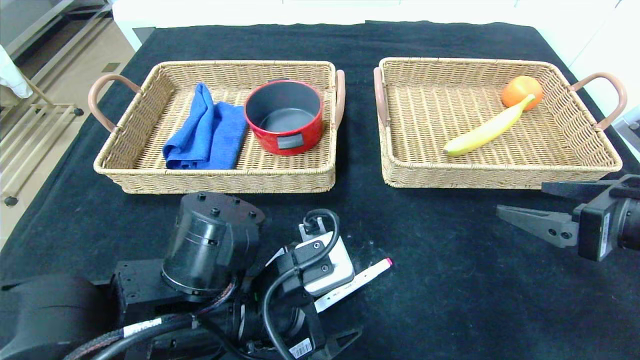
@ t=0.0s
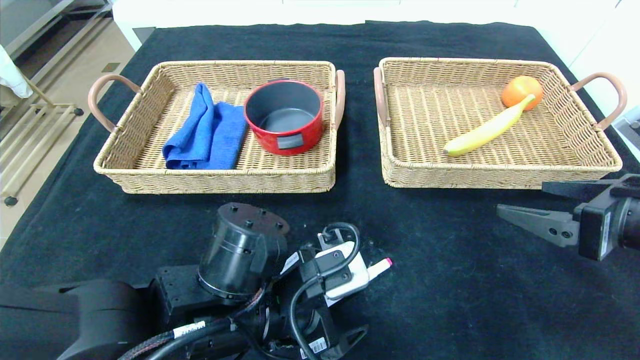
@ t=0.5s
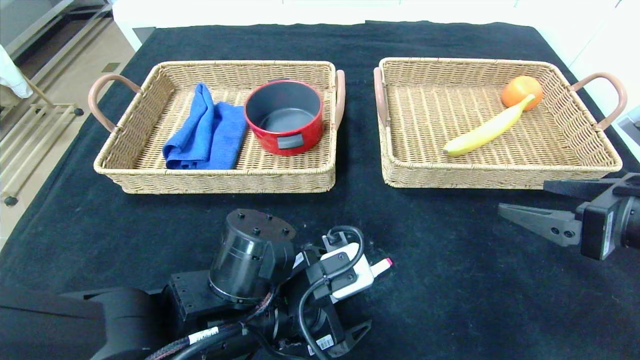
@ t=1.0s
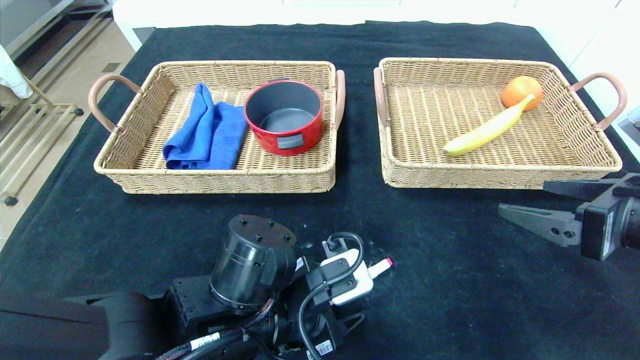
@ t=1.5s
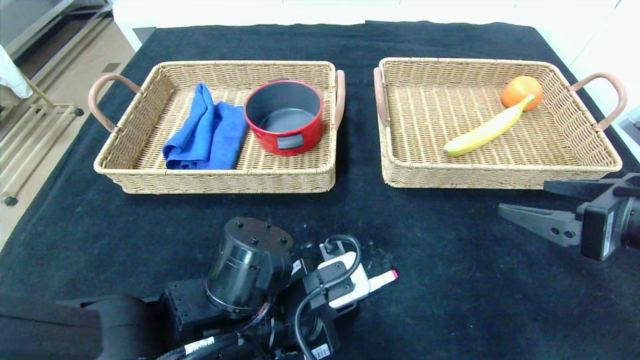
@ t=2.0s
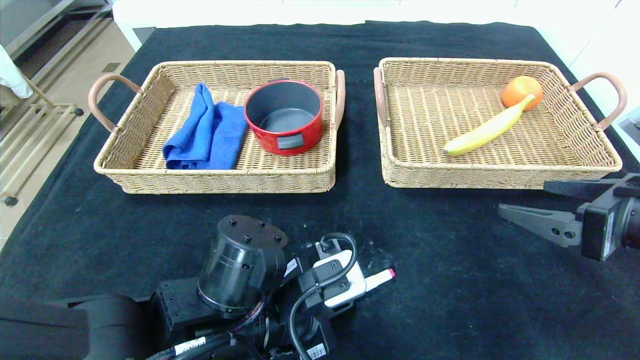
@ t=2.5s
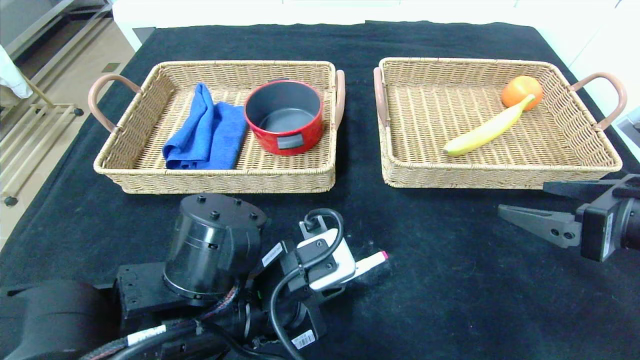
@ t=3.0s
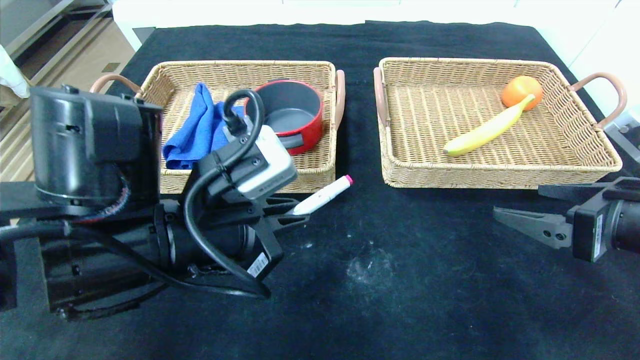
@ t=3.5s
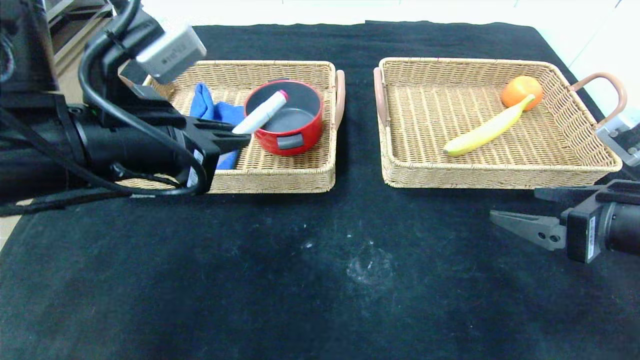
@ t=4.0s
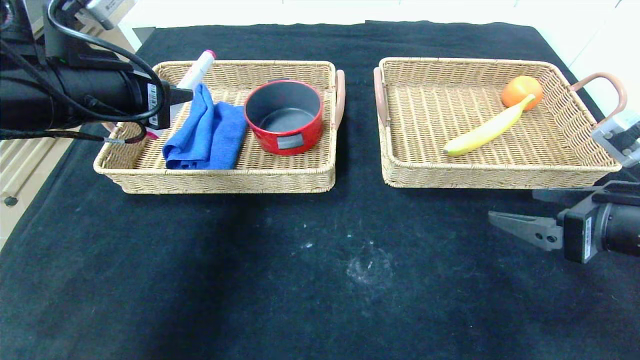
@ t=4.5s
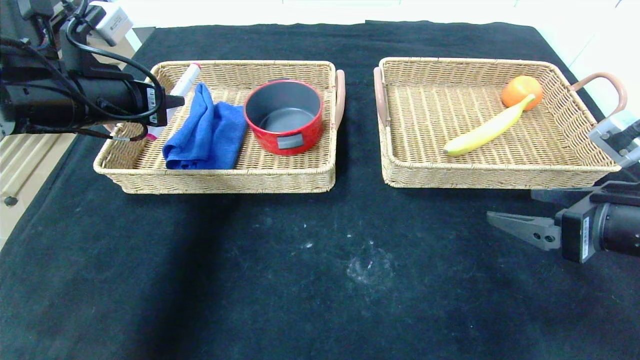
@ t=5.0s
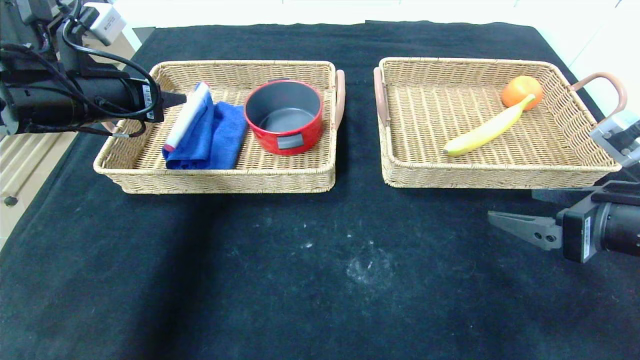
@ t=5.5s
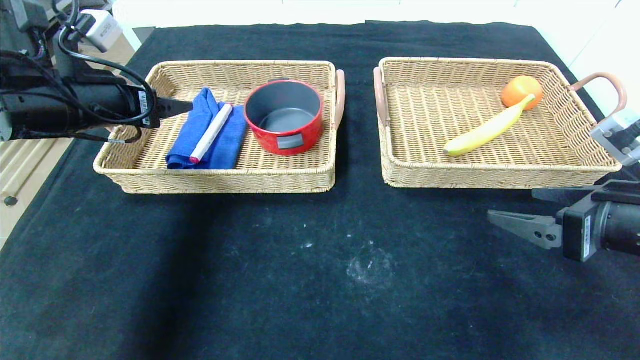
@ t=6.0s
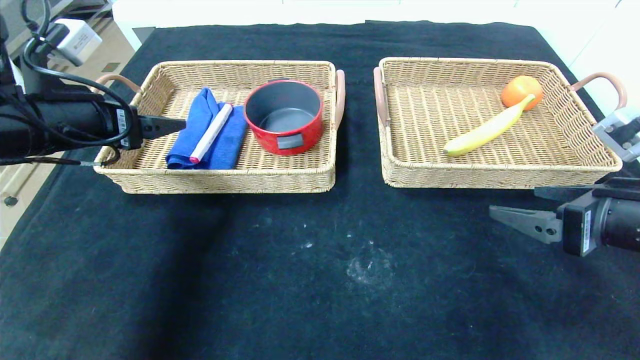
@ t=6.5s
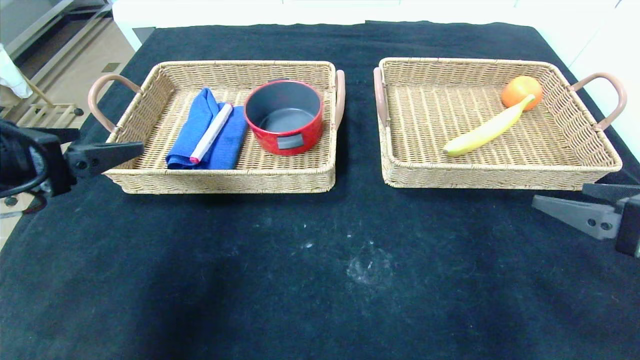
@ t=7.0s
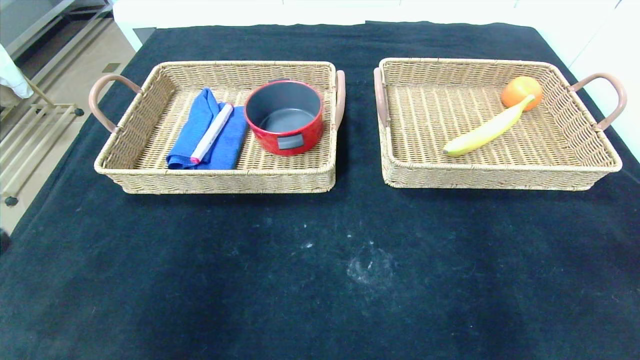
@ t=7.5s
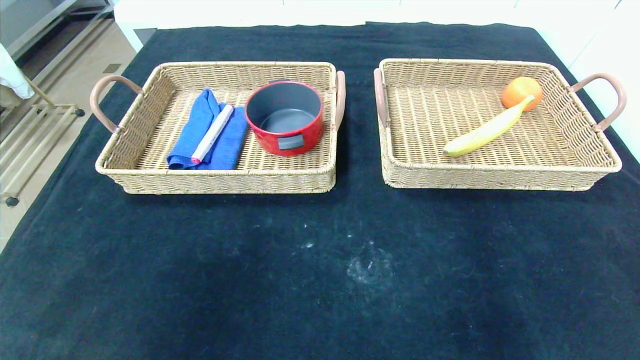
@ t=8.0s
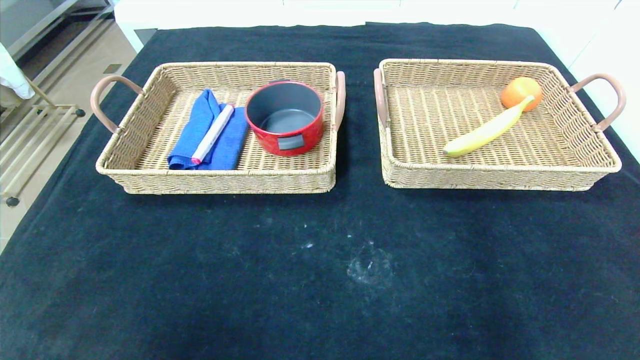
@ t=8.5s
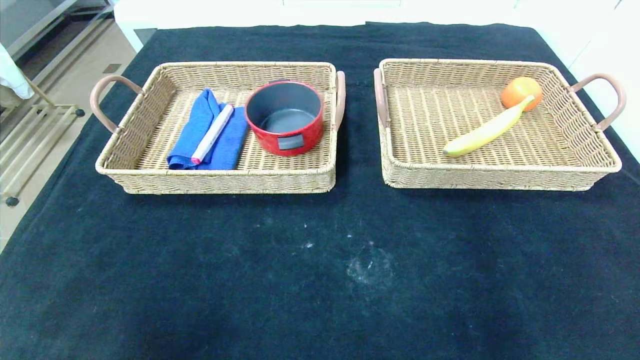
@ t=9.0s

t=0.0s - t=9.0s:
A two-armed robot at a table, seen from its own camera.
Step, t=0.0s - t=5.5s: Grasp the pink marker and put it in the left basket.
t=0.0s - t=2.0s: The left gripper closes its fingers.
t=2.0s - t=4.5s: The left gripper heads upward and to the left, covering roughly 25 cm.
t=4.5s - t=7.0s: The left gripper travels backward and to the left by some 10 cm, and opens up.
t=7.0s - t=9.0s: The two grippers go roughly 25 cm backward and downward.

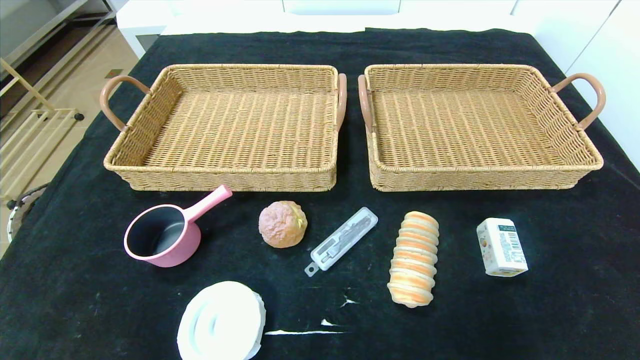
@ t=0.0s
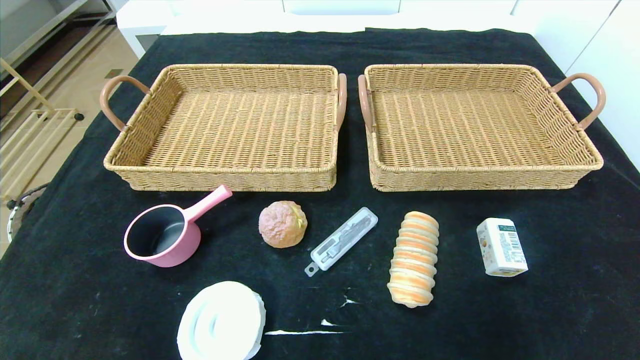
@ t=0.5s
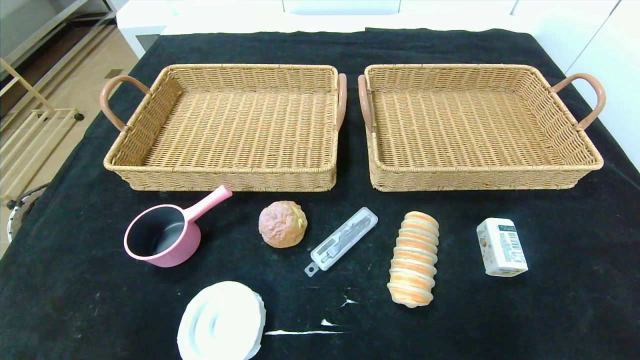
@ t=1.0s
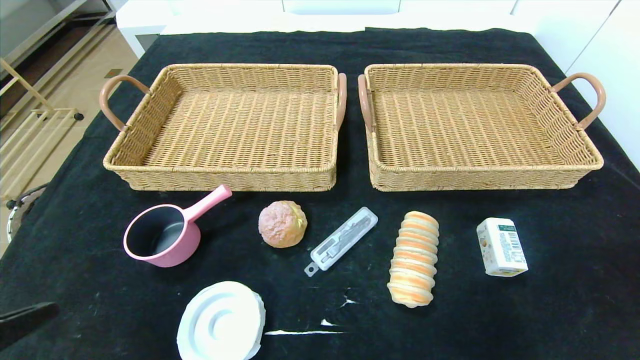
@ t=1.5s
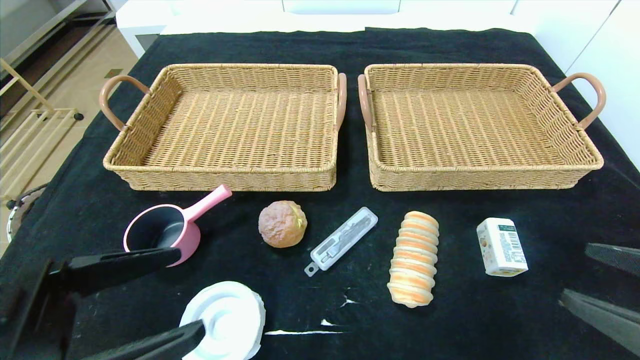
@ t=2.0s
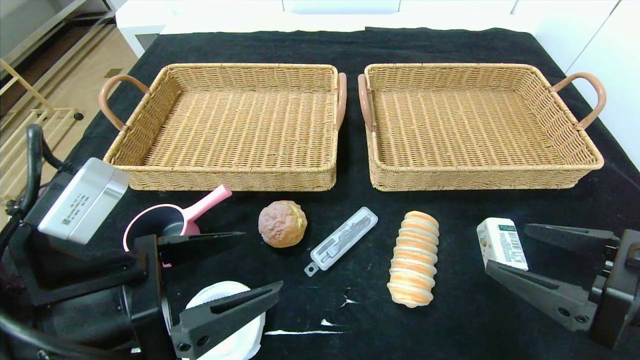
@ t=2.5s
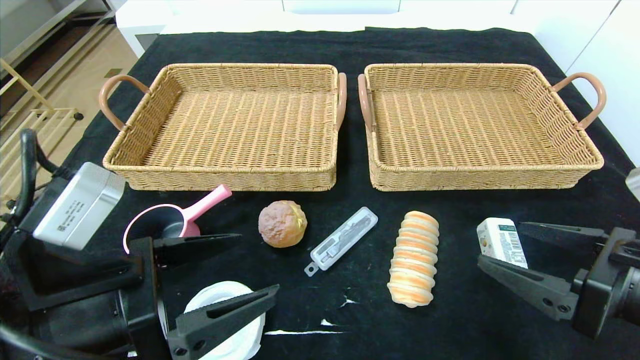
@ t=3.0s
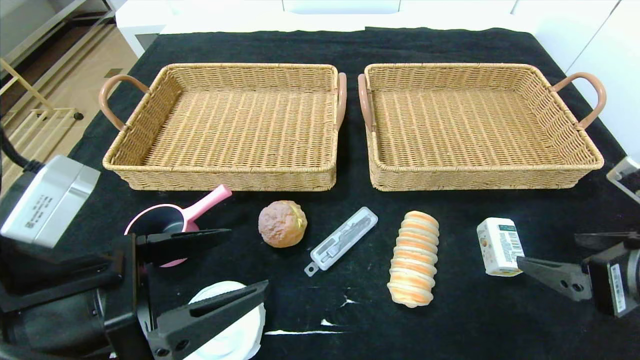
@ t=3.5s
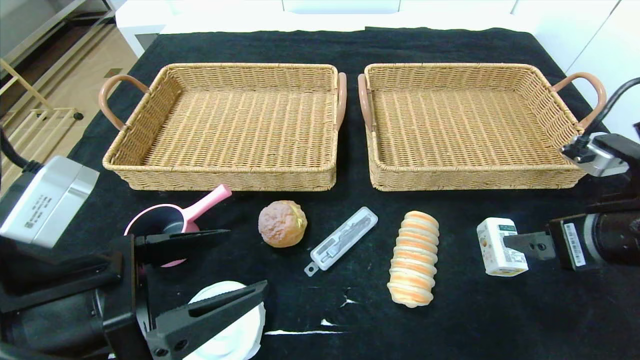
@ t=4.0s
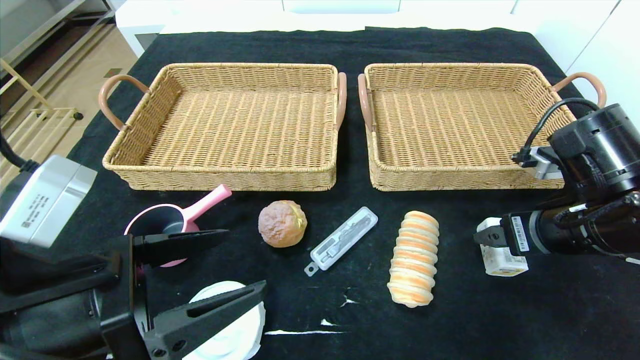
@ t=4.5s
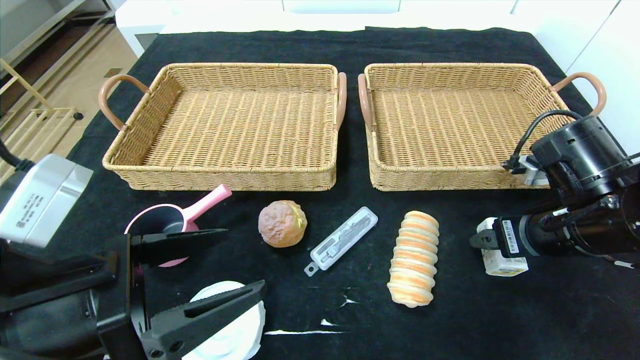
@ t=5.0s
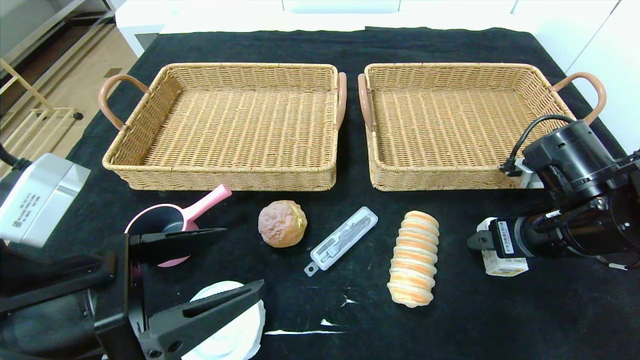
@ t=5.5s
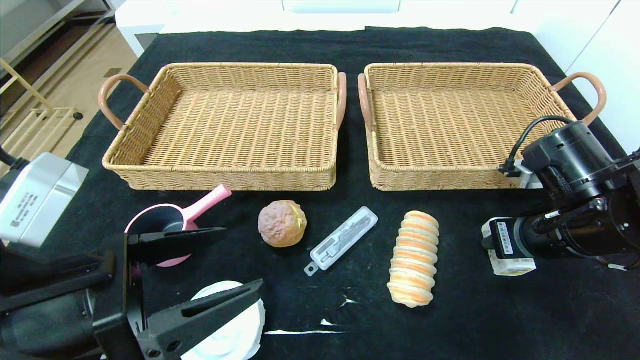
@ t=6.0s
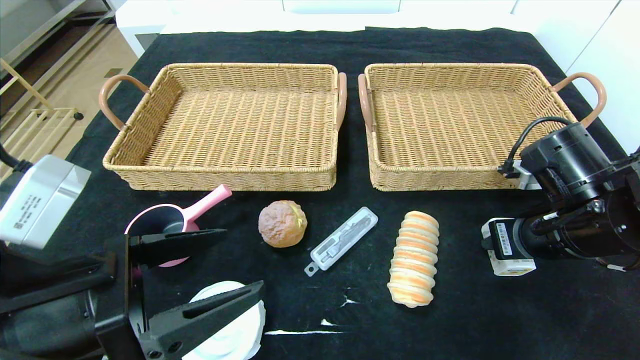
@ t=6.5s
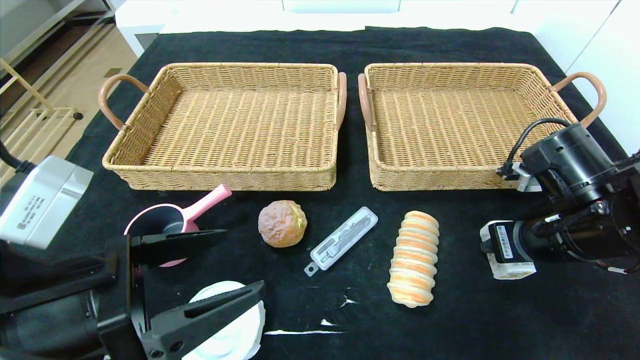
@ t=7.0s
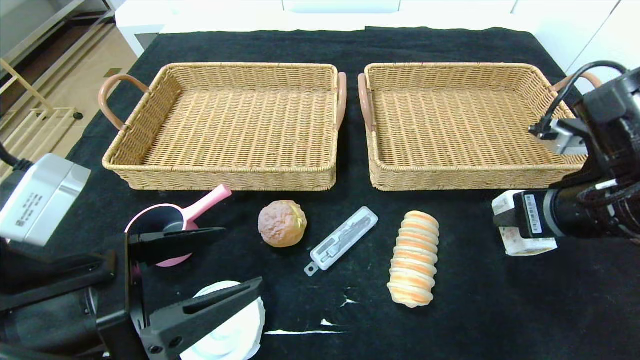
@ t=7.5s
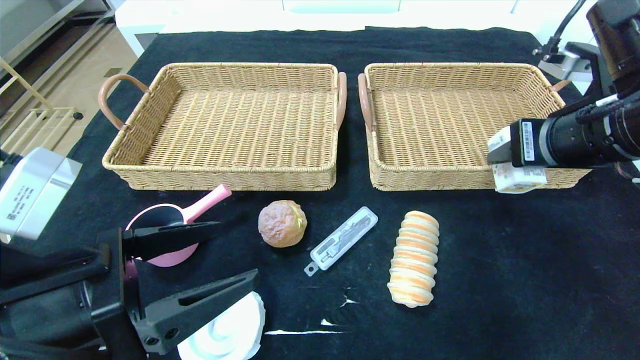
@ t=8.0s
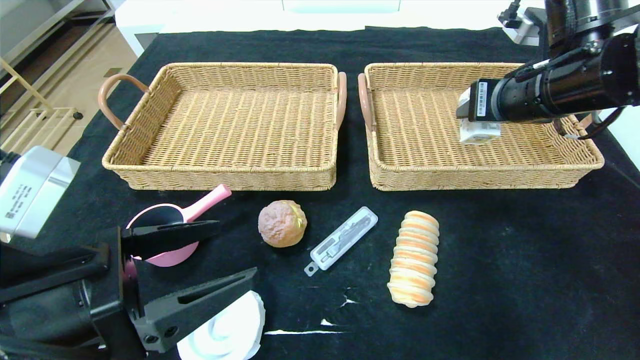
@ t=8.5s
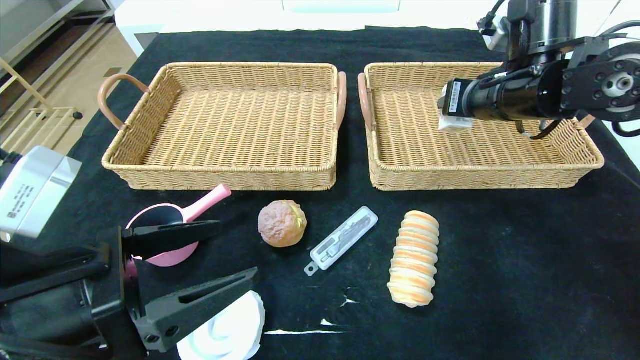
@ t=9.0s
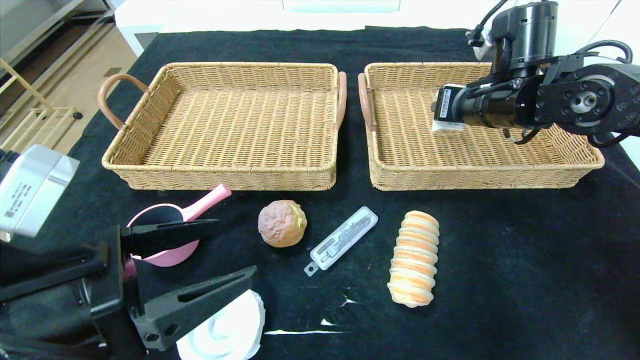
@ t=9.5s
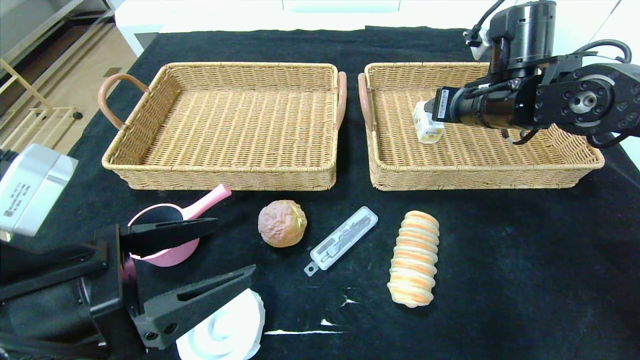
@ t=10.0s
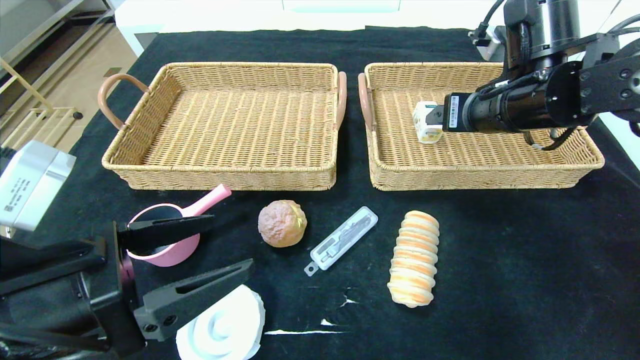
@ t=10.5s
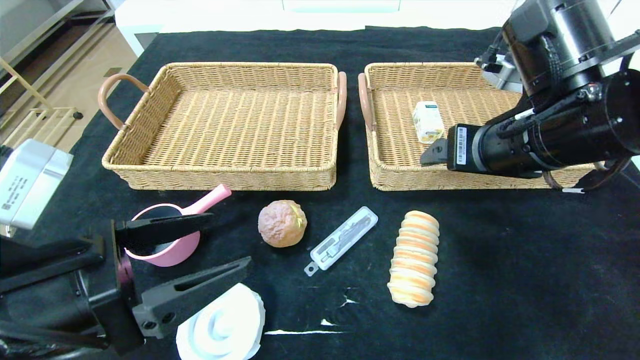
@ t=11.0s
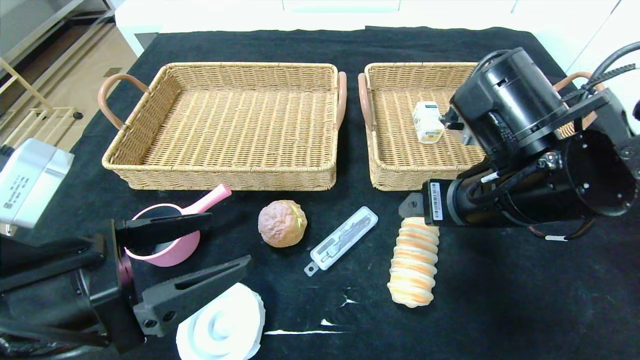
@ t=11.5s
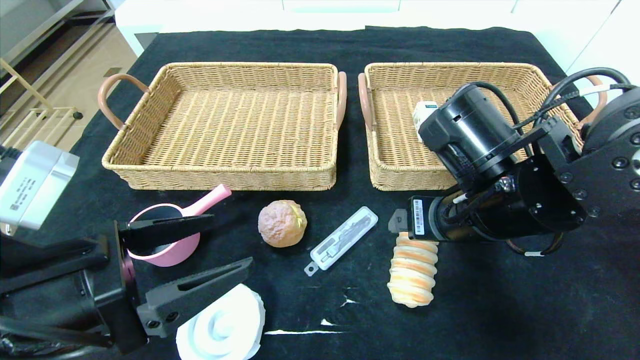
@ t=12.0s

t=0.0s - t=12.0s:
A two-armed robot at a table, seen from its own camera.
Step, t=0.0s - t=10.0s: Grasp the square chewing gum and put it in the right basket.
t=0.0s - t=2.0s: Both grippers move upward and forward, about 20 cm.
t=2.0s - t=4.0s: The right gripper heads forward, covering approximately 10 cm.
t=4.0s - t=6.0s: The right gripper moves forward, roughly 5 cm, and closes.
t=6.0s - t=8.0s: The right gripper heads upward, covering about 10 cm.
t=8.0s - t=10.0s: The right gripper heads forward, covering about 15 cm.
t=10.0s - t=12.0s: The right gripper shifts some 15 cm backward, to the left and downward, and opens.
